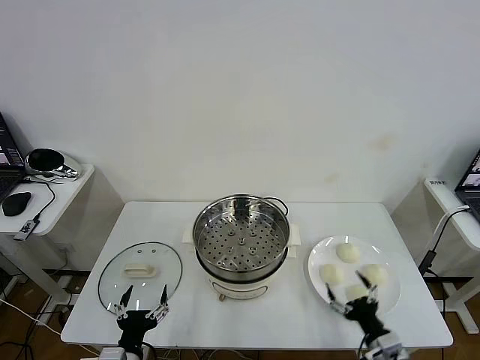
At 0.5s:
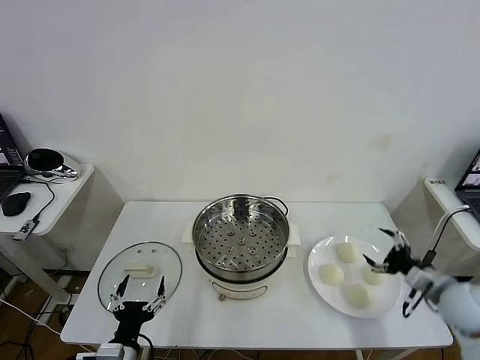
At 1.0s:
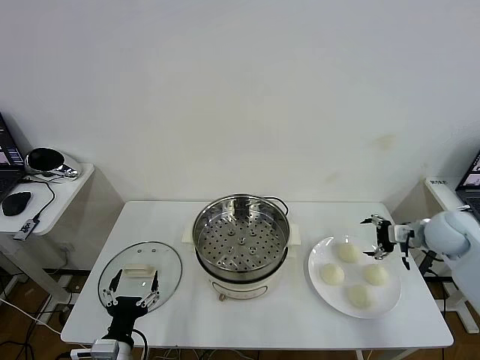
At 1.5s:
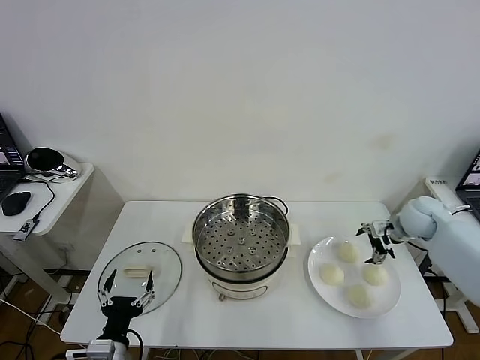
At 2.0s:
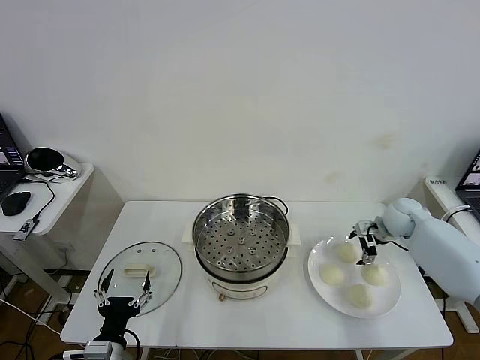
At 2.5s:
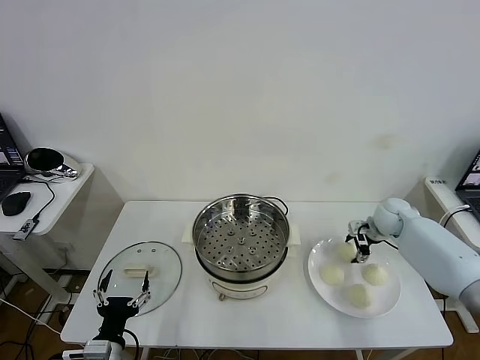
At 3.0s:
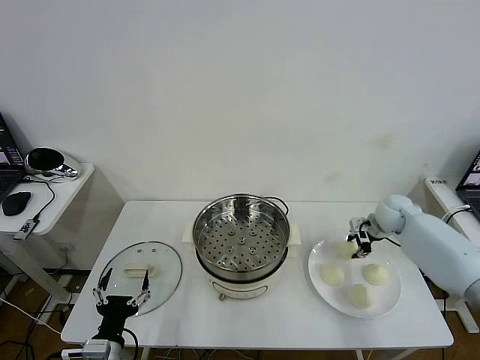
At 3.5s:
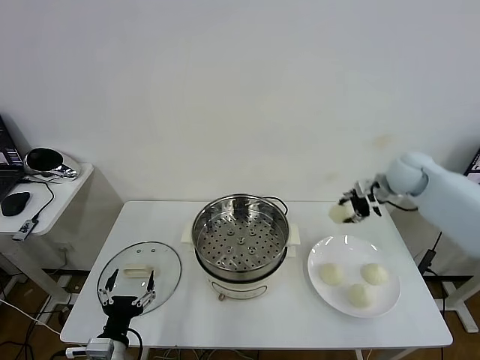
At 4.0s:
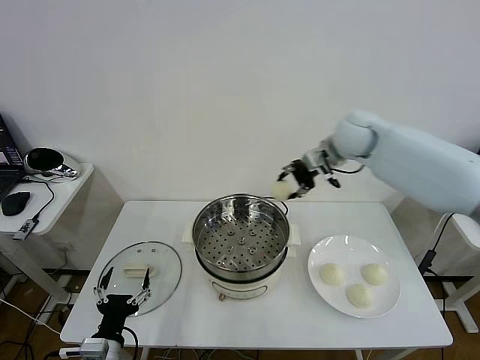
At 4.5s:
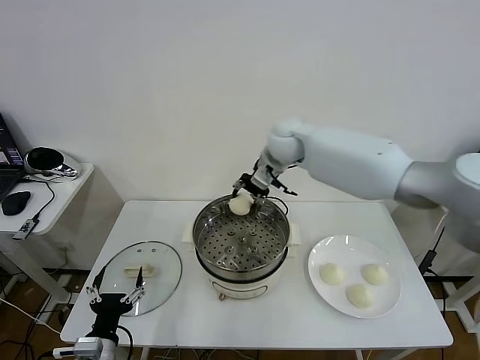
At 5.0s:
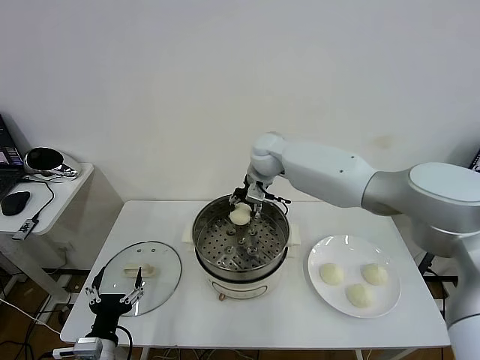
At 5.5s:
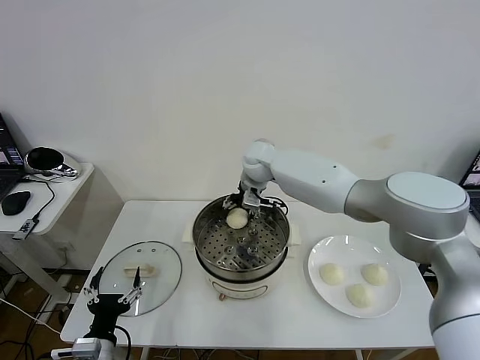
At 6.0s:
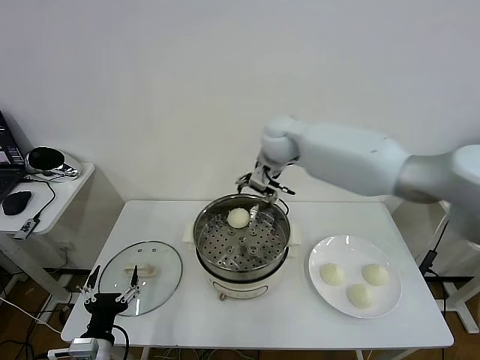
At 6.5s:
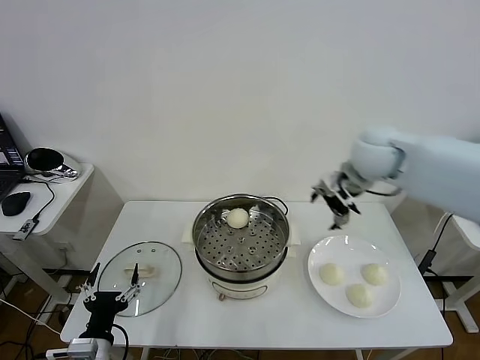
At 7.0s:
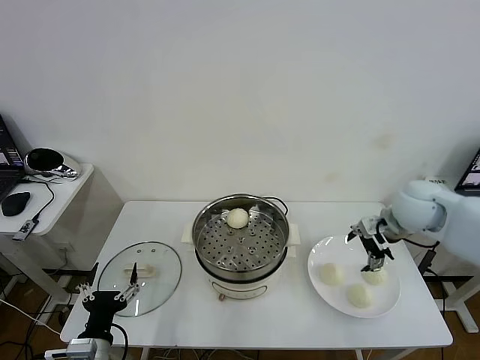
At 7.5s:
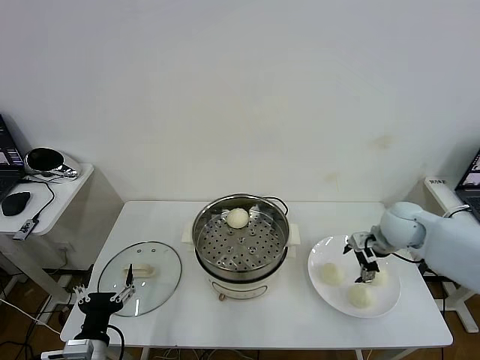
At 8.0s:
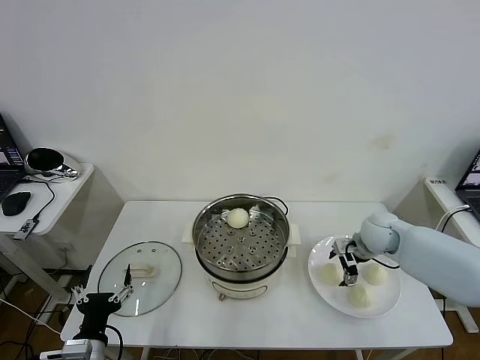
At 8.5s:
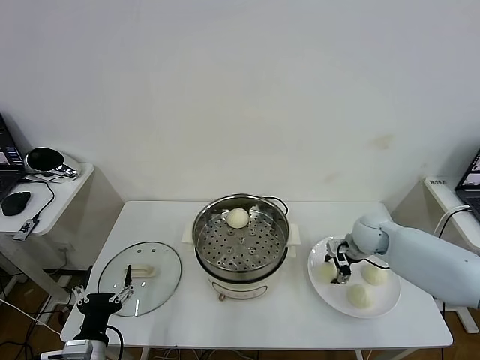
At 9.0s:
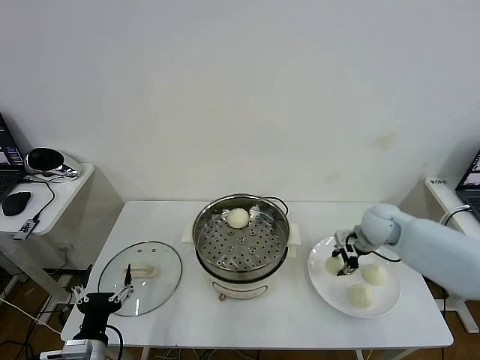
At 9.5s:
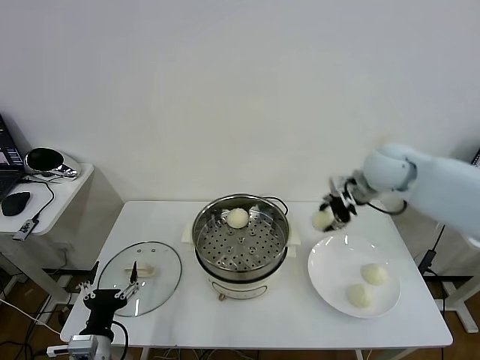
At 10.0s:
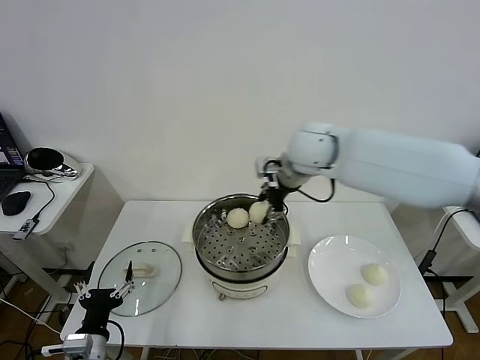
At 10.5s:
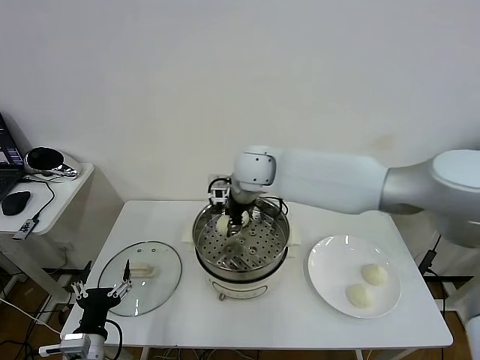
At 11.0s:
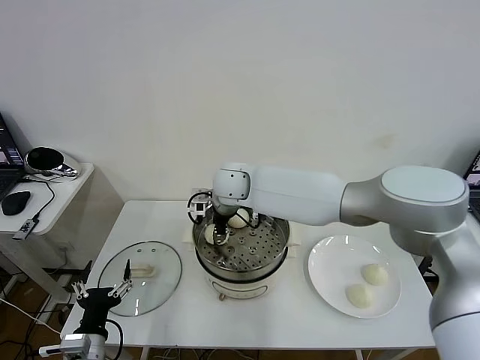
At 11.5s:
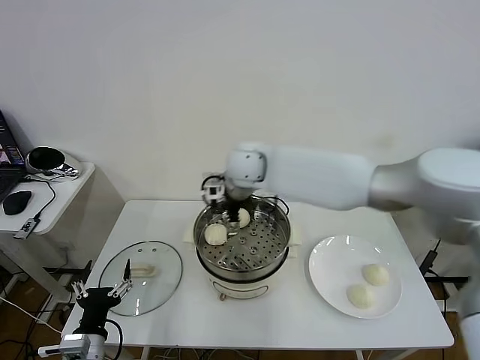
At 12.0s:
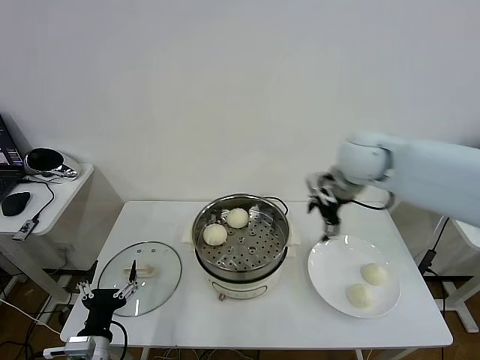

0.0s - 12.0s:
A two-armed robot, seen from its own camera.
Task of the whole recording: take steamed baozi put them in steamer then cover it.
Step, 0.0s - 2.5s: Grasp the baozi in the plate with right gripper.
Step, 3.0s - 5.5s: Place the baozi on the steamer with right gripper.
Step, 6.0s - 8.5s: Grasp the baozi in the plate with right gripper.
Step, 9.0s - 11.0s: Place the baozi on the steamer with right gripper.
2.0s - 4.0s: The right gripper goes about 30 cm to the left and upward, and closes.
4.0s - 6.0s: The right gripper travels to the left by about 5 cm, and opens its fingers.
6.0s - 8.0s: The right gripper shifts about 30 cm downward and to the right.
8.0s - 10.0s: The right gripper heads to the left and upward, covering roughly 30 cm, and closes.
10.0s - 12.0s: The right gripper moves to the right, about 15 cm, and opens up.

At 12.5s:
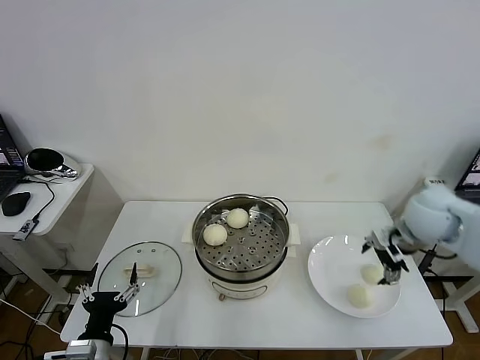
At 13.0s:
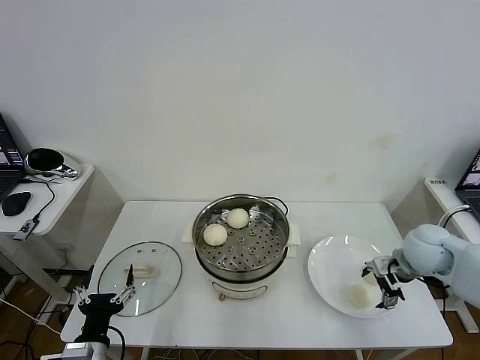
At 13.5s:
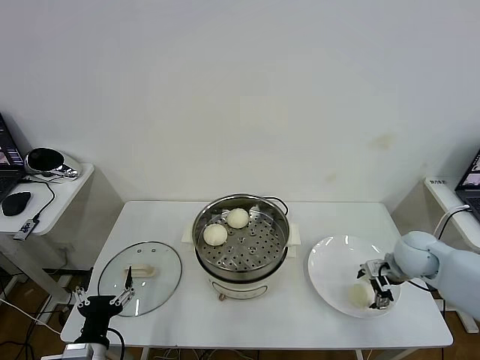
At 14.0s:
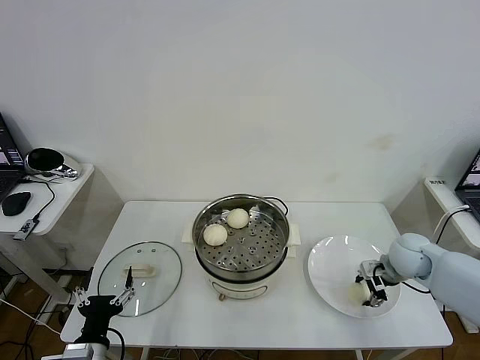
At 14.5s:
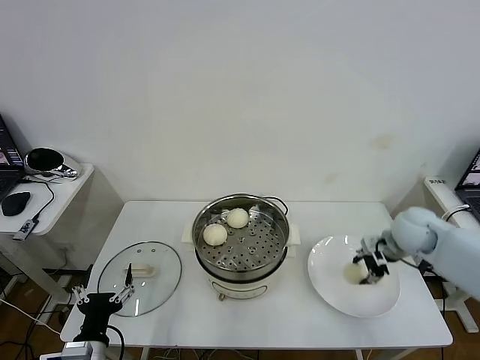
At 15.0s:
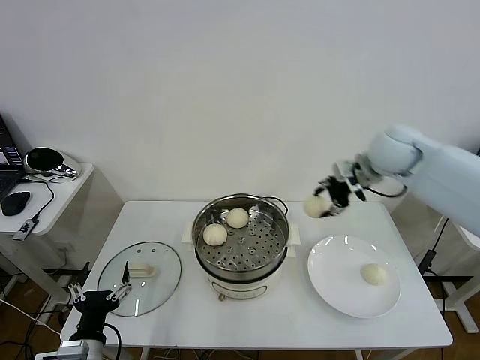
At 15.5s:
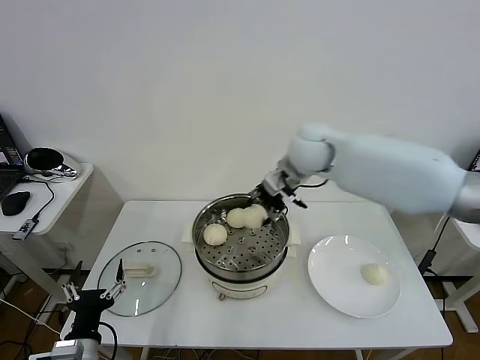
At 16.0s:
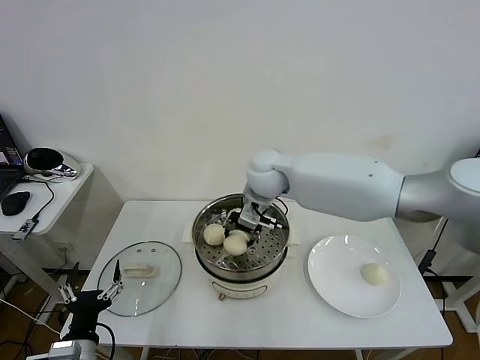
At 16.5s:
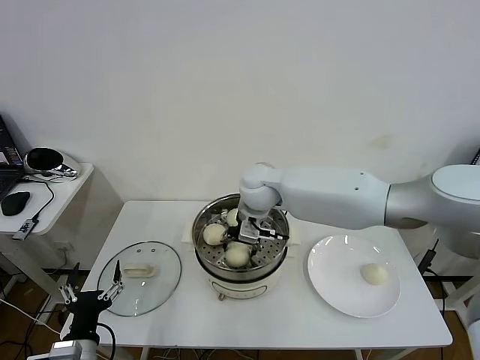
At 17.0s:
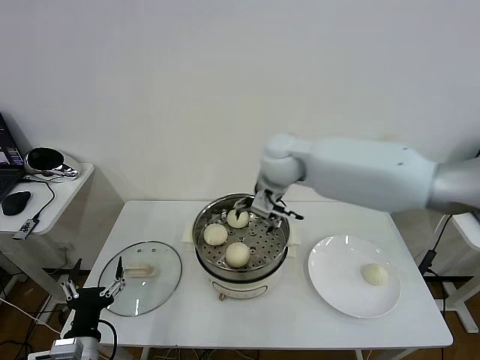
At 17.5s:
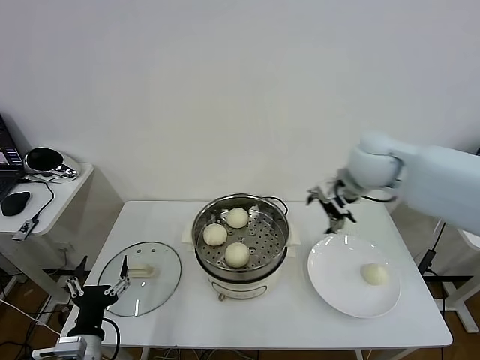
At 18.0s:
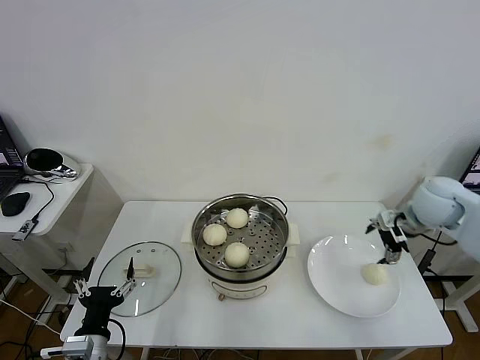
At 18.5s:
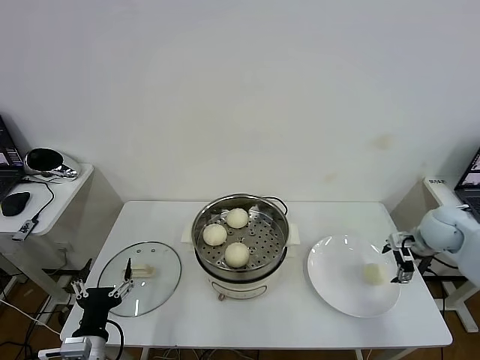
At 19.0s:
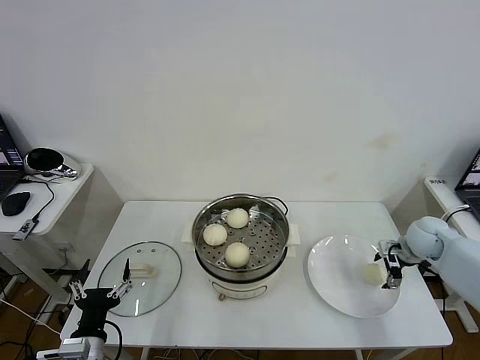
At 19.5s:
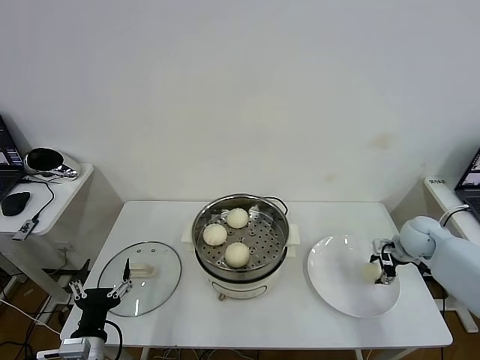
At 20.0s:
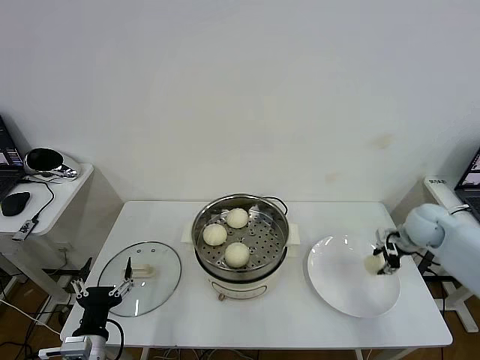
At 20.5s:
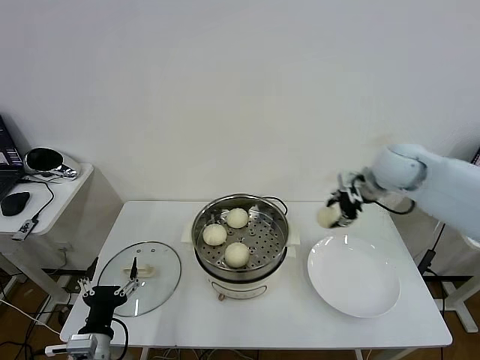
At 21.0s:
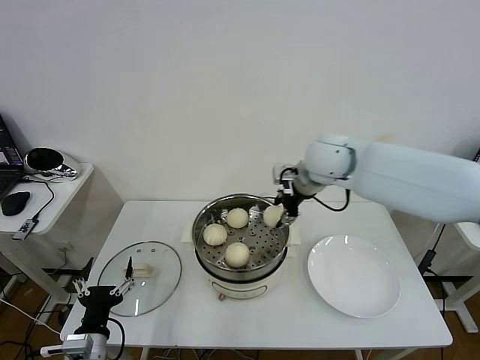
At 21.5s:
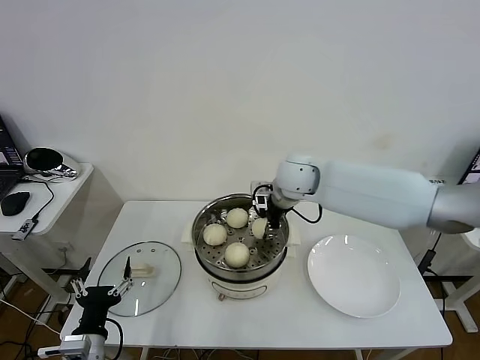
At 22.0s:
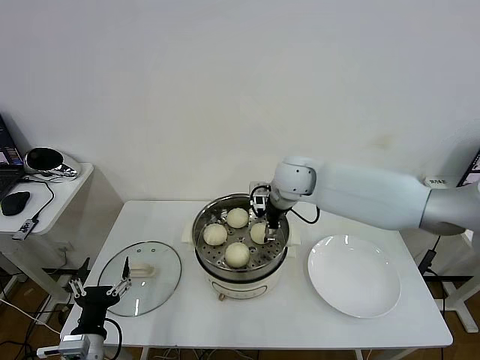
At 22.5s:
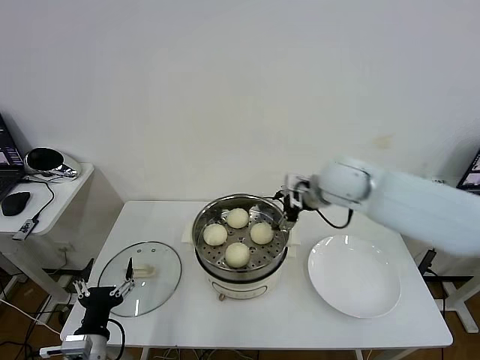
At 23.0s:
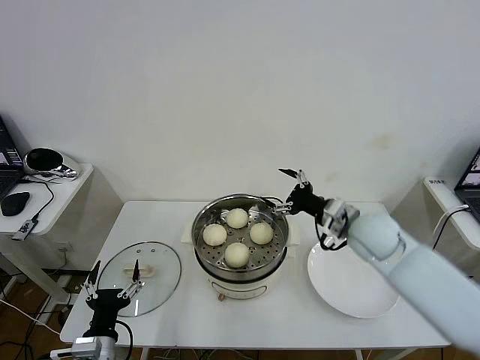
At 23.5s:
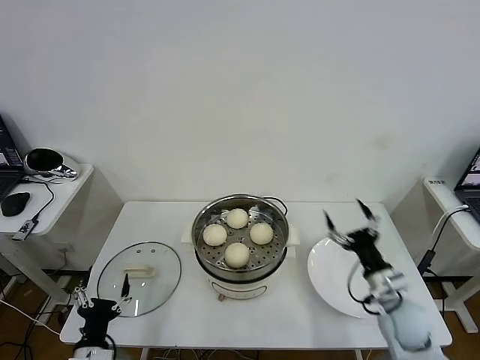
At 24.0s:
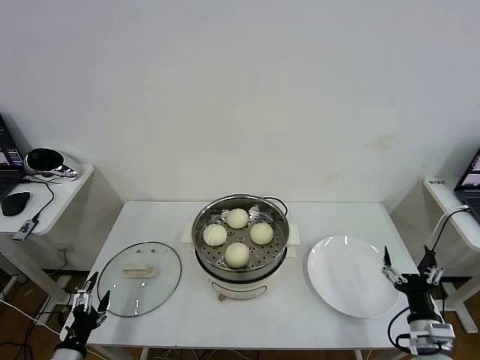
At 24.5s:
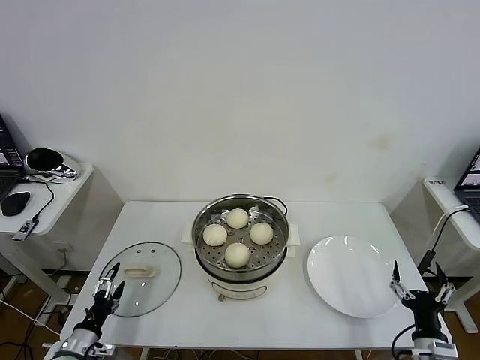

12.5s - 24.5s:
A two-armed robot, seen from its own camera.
Task of the whole recording: take steamed baozi put them in steamer then cover it.
Step, 12.5s - 14.0s: Grasp the baozi in the plate with right gripper.
Step, 14.5s - 16.5s: Place the baozi on the steamer with right gripper.
Step, 17.0s - 19.5s: Grasp the baozi in the plate with right gripper.
Step, 20.0s - 22.0s: Place the baozi on the steamer with right gripper.
12.5s - 14.5s: The right gripper moves approximately 10 cm downward and comes back, and closes.
14.5s - 16.5s: The right gripper is displaced to the left by some 35 cm, and opens its fingers.
16.5s - 18.5s: The right gripper is displaced to the right by about 40 cm.
18.5s - 20.5s: The right gripper goes roughly 20 cm to the left and upward, and closes up.
20.5s - 22.5s: The right gripper shifts roughly 10 cm to the left, and opens its fingers.
22.5s - 24.5s: The left gripper goes about 15 cm to the left and downward. Meanwhile the right gripper moves backward, downward and to the right, approximately 50 cm.

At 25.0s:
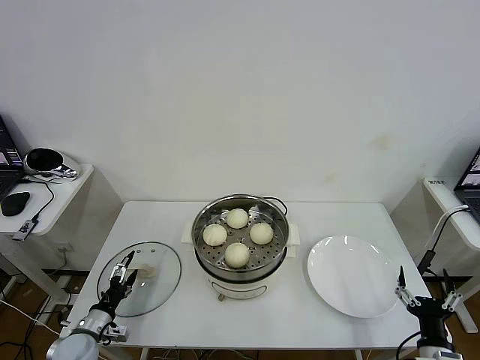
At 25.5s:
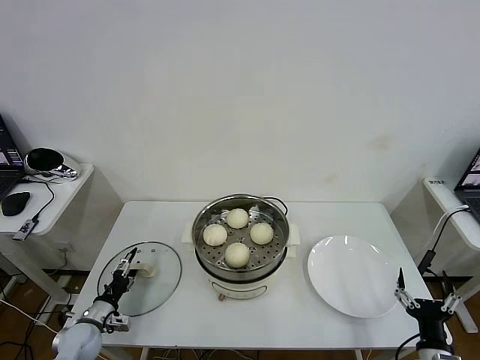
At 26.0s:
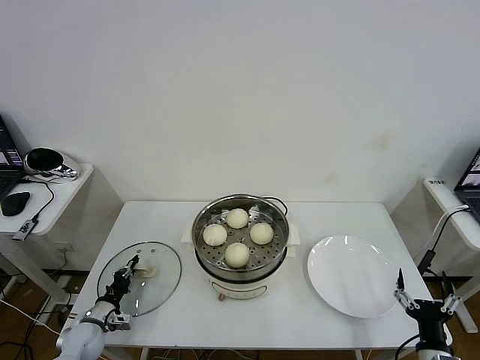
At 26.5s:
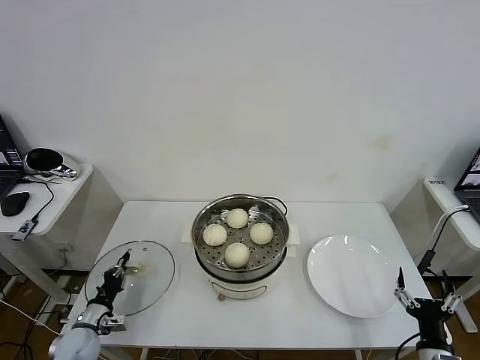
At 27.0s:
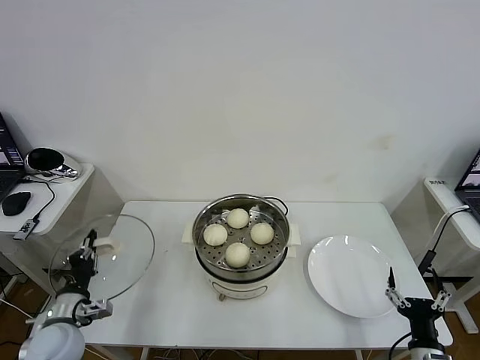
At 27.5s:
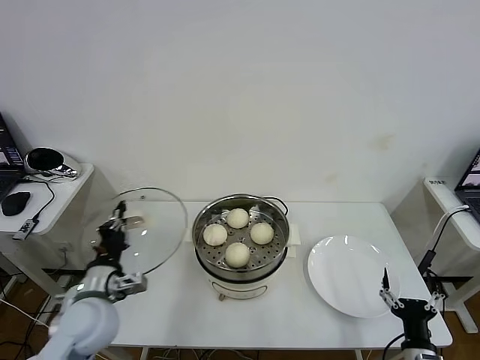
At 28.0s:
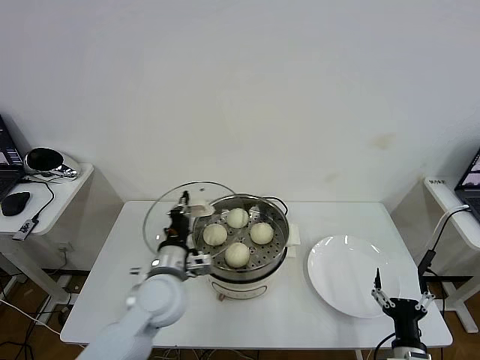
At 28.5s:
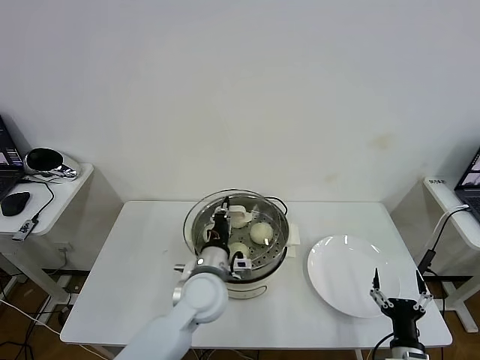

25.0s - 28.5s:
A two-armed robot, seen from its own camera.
Task of the whole recording: take steamed baozi put them in steamer then cover it.
25.0s - 27.0s: The left gripper moves upward, about 10 cm, and closes.
27.0s - 28.5s: The left gripper heads to the right, covering some 30 cm.
